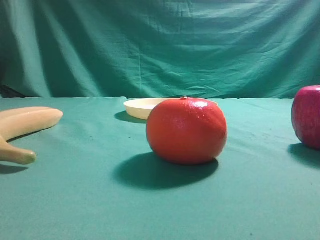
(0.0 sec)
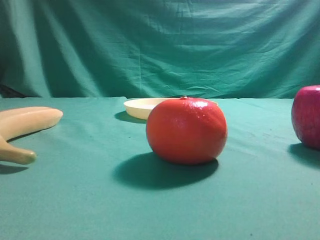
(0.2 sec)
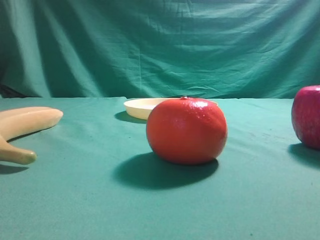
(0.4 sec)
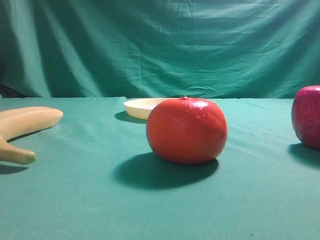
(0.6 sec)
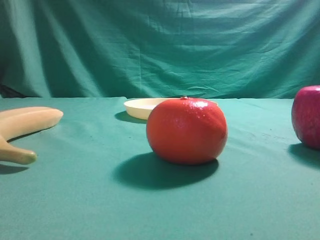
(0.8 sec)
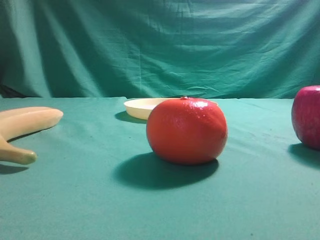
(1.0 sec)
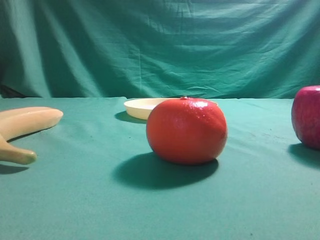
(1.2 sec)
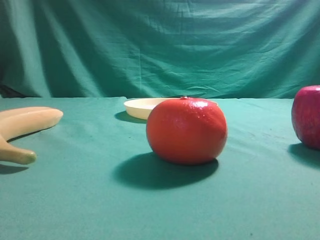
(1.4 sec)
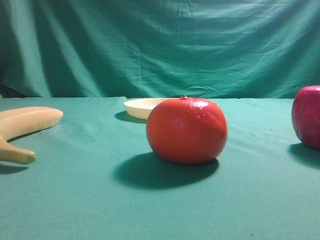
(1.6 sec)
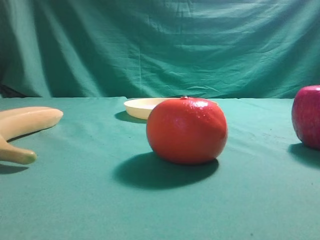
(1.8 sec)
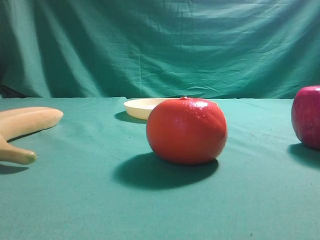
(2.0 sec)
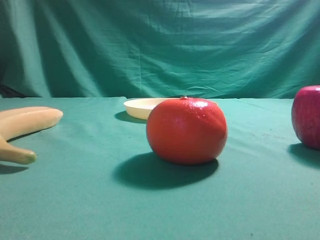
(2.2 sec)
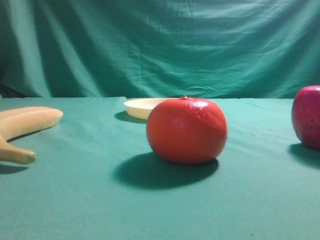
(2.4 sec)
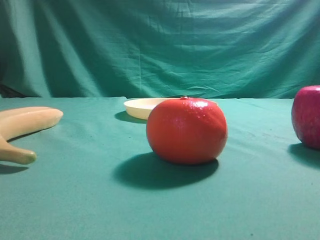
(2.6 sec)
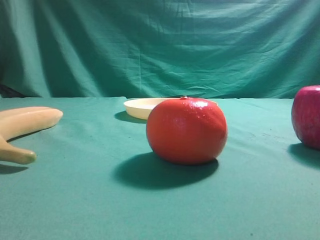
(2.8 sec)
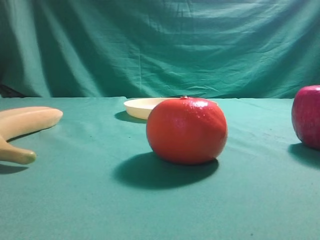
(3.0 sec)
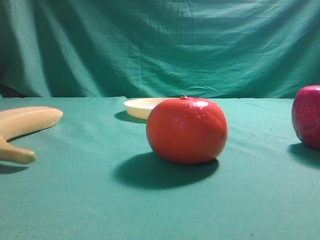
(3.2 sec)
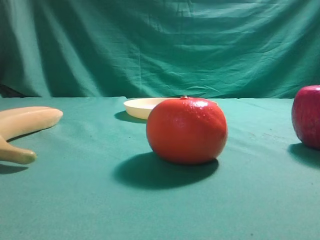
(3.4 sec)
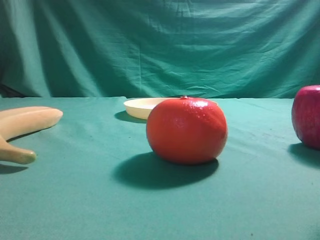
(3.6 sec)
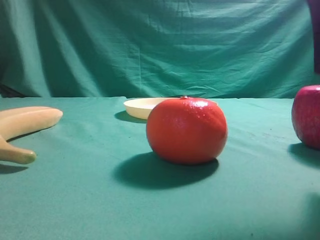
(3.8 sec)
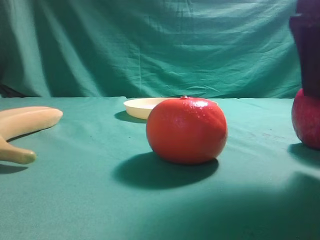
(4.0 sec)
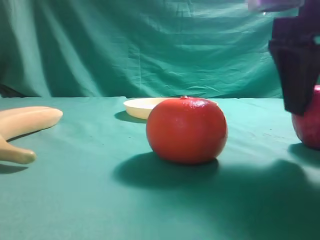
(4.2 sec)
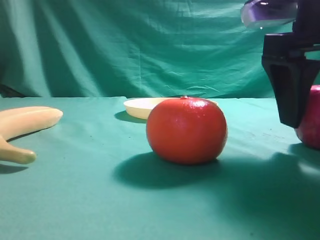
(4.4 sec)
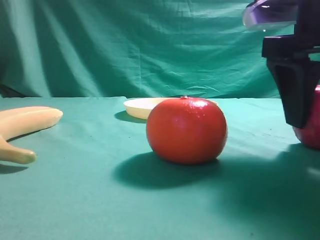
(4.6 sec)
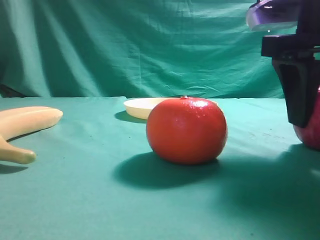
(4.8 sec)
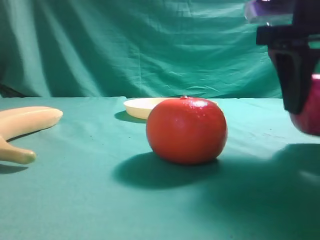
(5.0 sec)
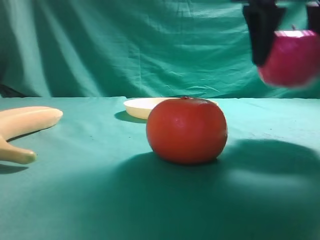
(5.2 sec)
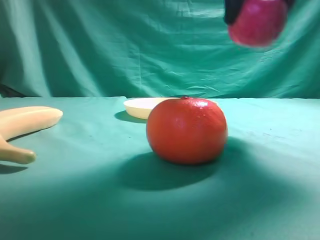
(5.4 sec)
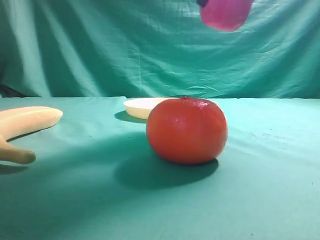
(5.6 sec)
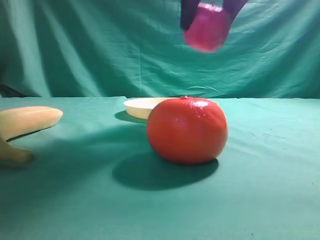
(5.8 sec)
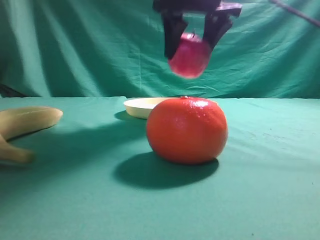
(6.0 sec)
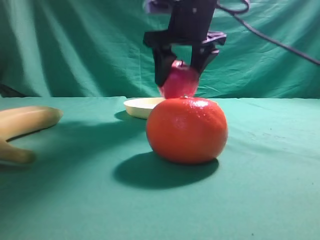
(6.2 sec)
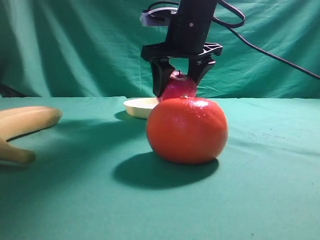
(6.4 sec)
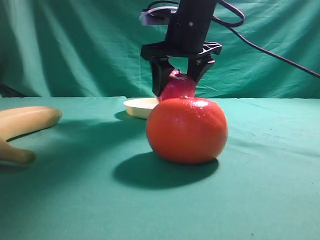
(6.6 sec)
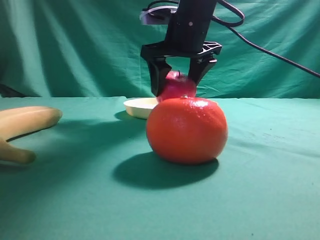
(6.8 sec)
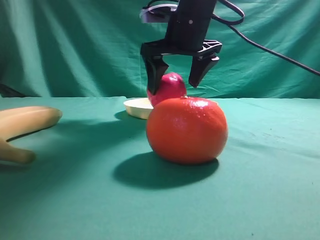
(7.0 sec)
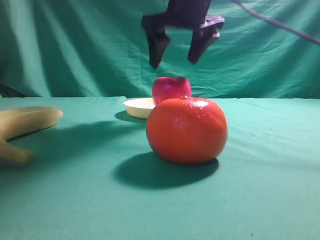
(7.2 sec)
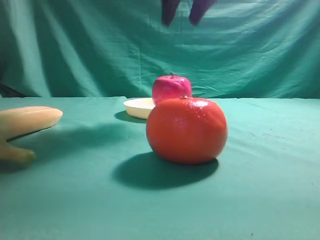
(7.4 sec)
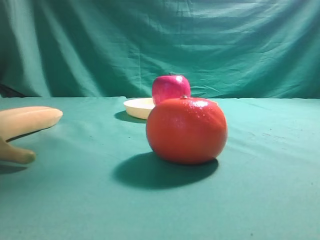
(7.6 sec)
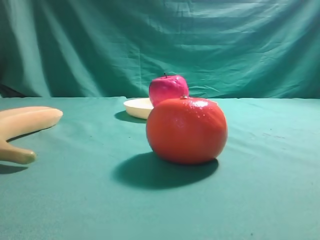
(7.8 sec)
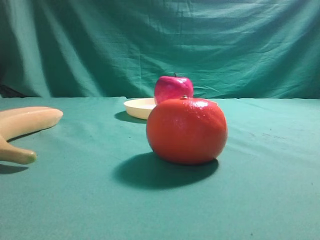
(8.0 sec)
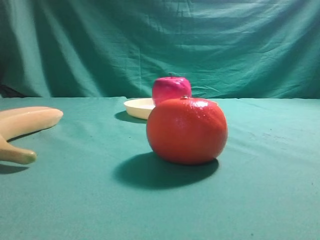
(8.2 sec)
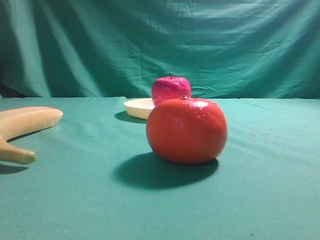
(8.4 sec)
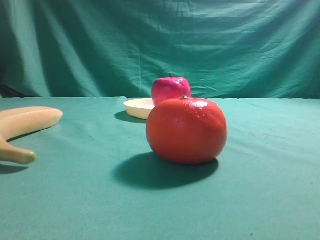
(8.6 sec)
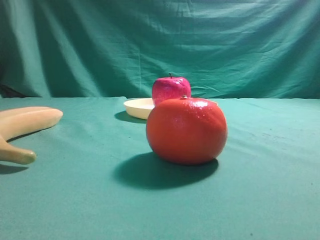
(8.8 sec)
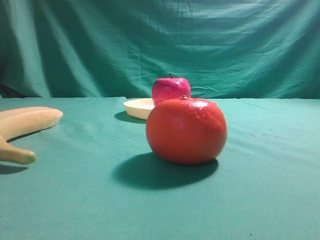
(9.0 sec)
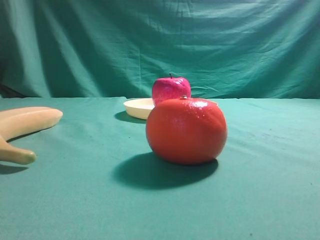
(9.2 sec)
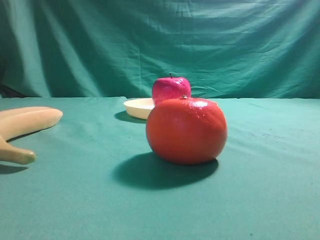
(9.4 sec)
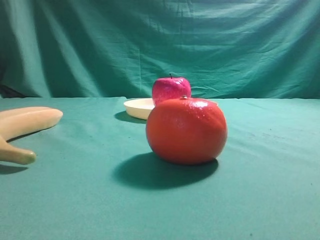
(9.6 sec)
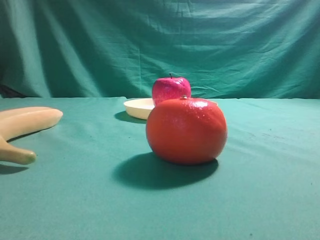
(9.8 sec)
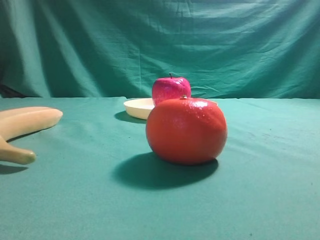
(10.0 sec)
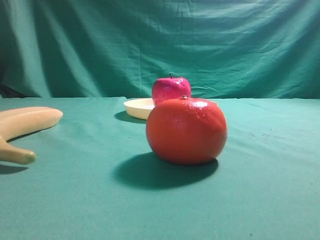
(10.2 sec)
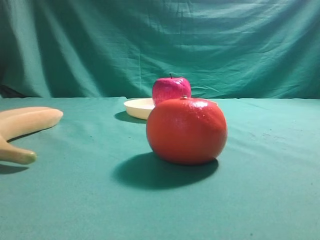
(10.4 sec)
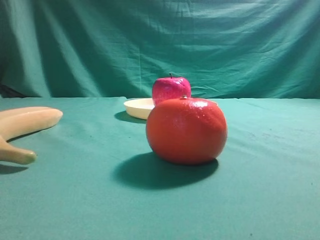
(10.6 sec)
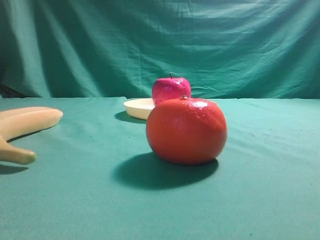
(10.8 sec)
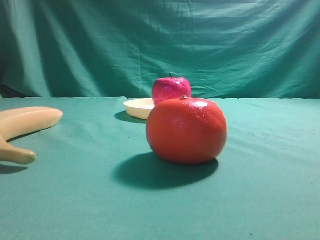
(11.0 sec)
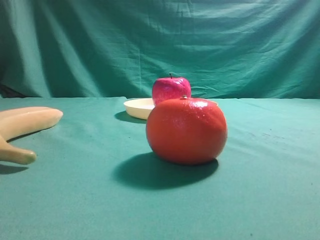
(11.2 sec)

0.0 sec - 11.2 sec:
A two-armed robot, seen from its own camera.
Task of the whole recording: grasp the apple and place it into the yellow plate.
Step, 0.0 sec - 5.0 sec: Grasp the fruit that can keep the doctor away.
Step, 5.2 sec - 7.0 sec: Place the picked object into the yellow plate.

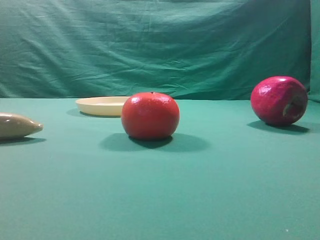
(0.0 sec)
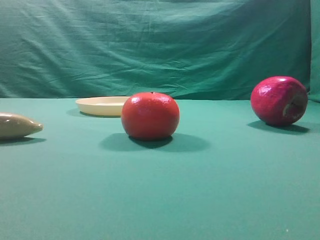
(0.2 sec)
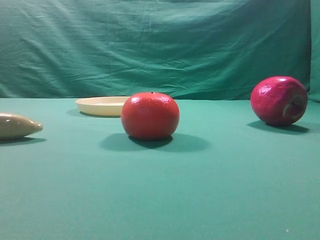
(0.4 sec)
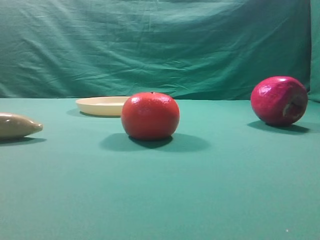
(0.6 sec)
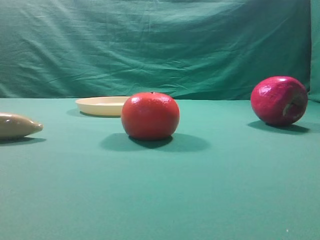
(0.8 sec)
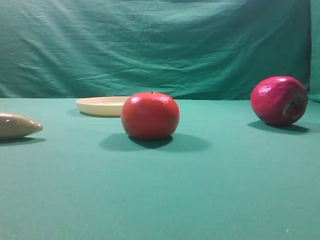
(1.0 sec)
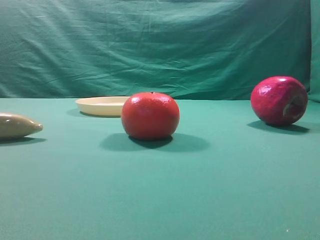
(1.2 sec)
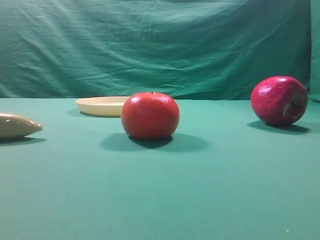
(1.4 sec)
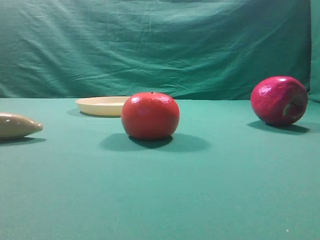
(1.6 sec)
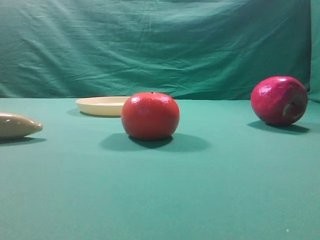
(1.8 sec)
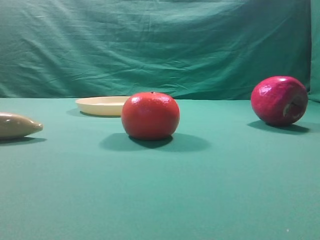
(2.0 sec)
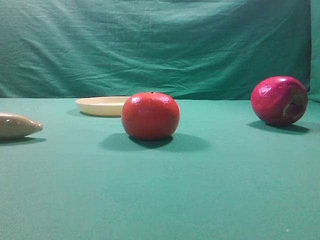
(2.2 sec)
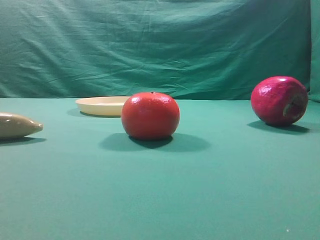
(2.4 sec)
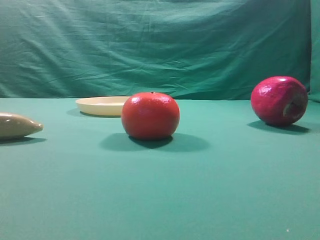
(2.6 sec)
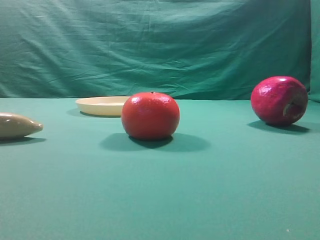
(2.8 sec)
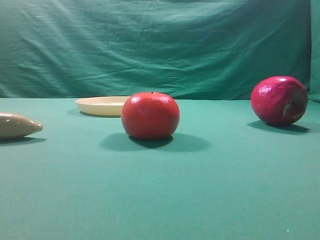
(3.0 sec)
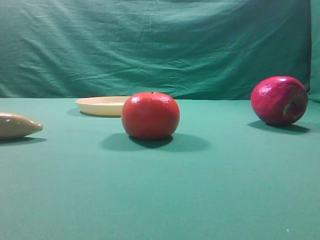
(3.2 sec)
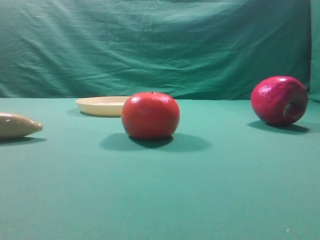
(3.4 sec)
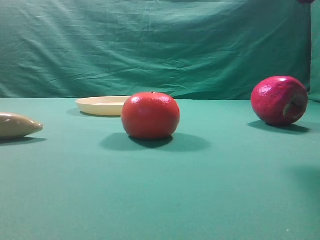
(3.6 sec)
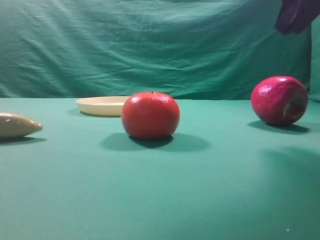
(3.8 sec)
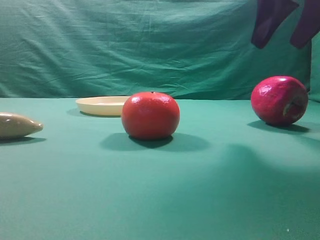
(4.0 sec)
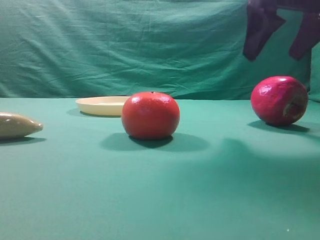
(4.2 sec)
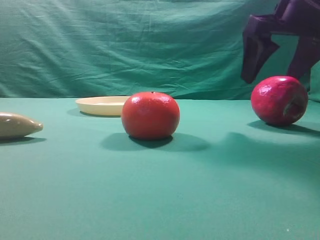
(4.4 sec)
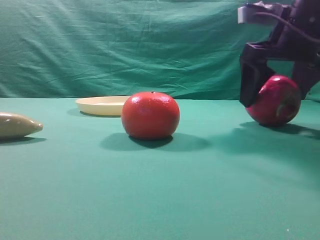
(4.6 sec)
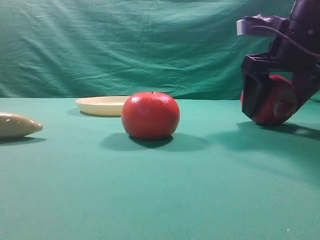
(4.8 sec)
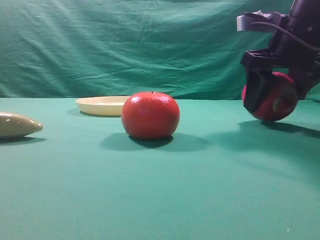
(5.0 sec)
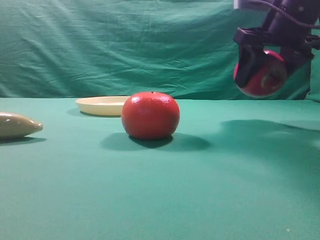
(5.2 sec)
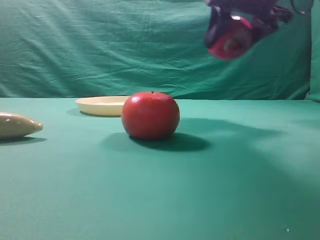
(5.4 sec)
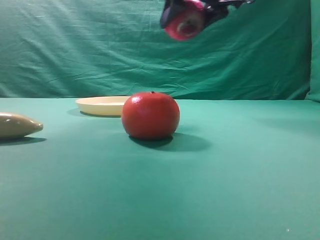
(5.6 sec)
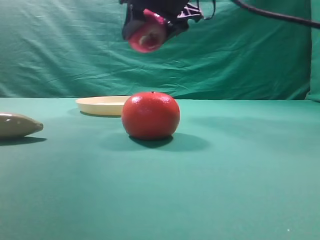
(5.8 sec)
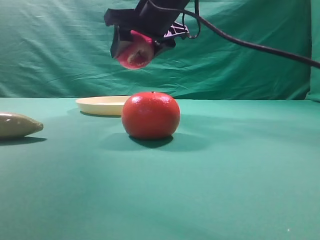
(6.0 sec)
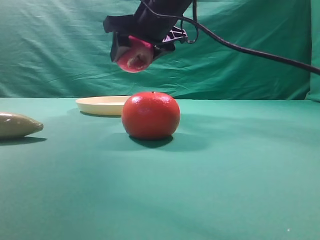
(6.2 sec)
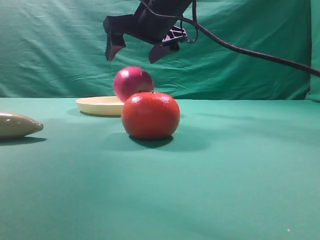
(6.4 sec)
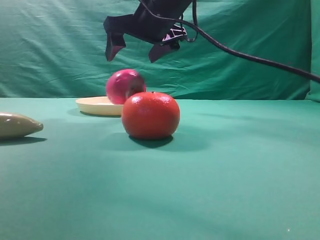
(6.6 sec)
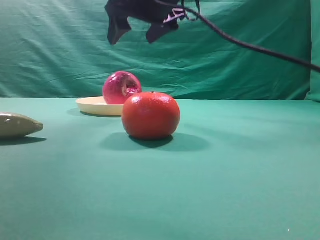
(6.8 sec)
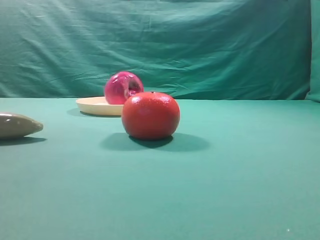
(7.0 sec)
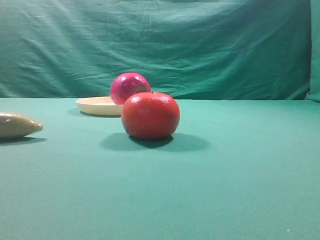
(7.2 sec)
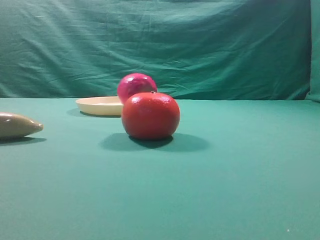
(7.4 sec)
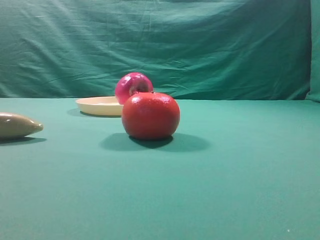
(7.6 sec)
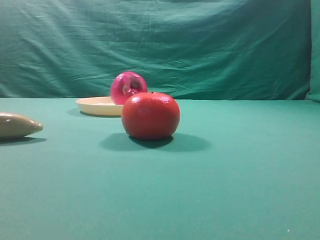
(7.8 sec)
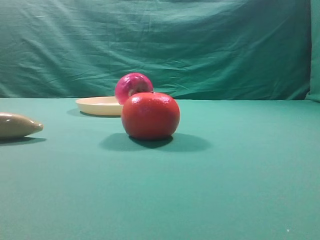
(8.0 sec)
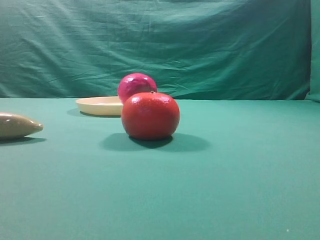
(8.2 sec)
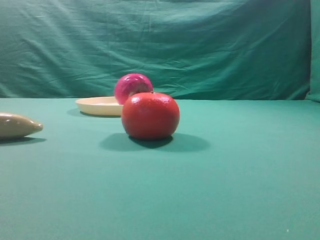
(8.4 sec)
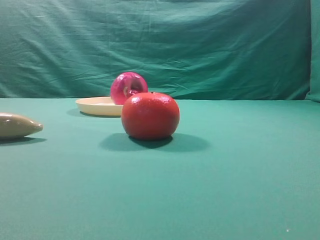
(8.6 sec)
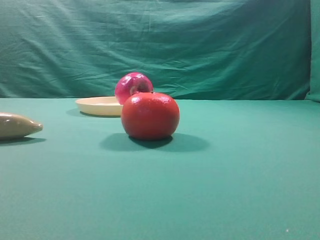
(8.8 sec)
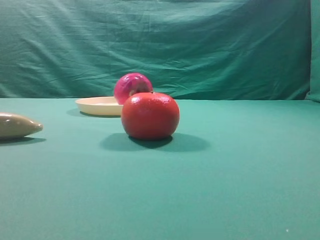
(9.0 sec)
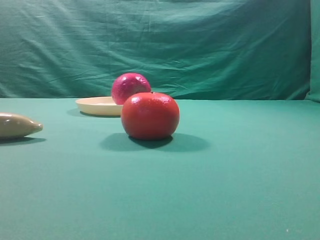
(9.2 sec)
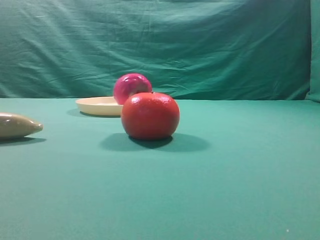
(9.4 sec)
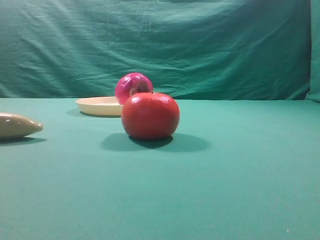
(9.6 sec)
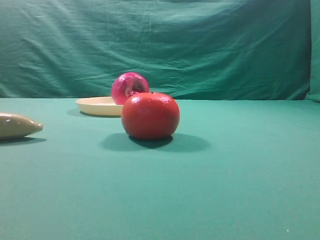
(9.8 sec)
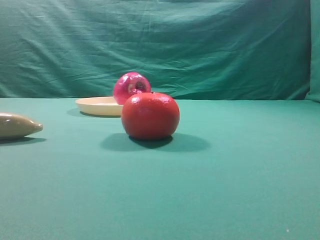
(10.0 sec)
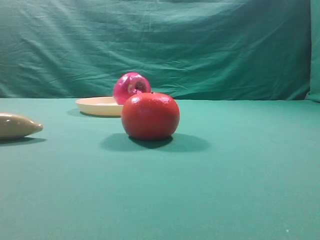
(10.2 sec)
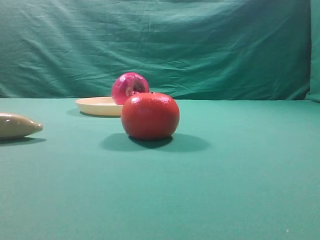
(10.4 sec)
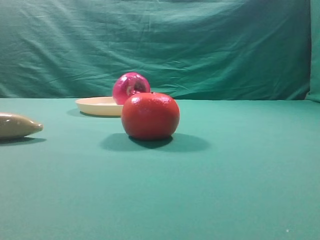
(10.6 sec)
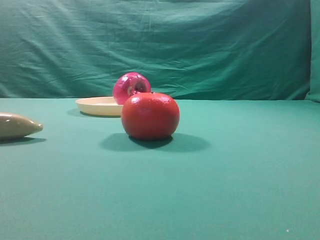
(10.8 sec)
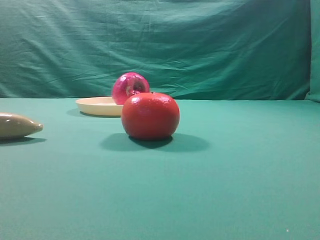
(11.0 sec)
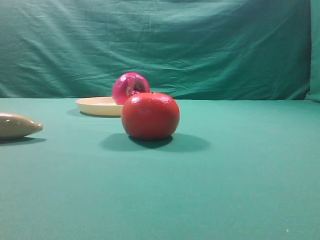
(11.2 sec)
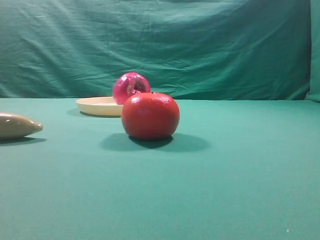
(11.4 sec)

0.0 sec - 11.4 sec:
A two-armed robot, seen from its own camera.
Task of the whole recording: grasp the apple and place it into the yellow plate.
Step, 0.0 sec - 5.0 sec: Grasp the fruit that can keep the doctor away.
Step, 5.2 sec - 6.6 sec: Place the picked object into the yellow plate.
